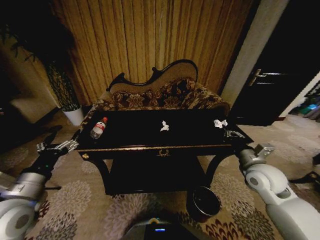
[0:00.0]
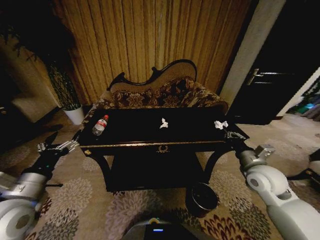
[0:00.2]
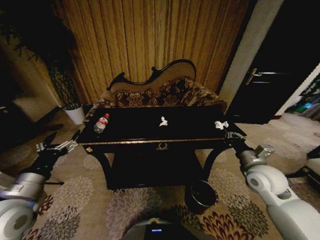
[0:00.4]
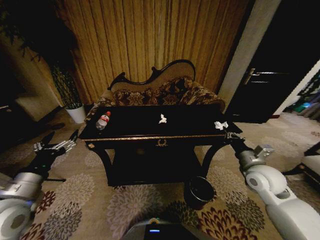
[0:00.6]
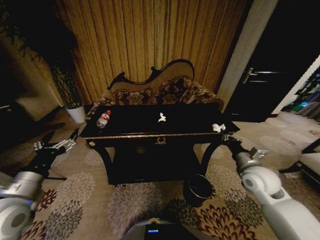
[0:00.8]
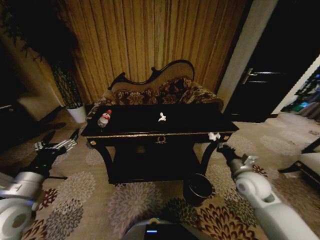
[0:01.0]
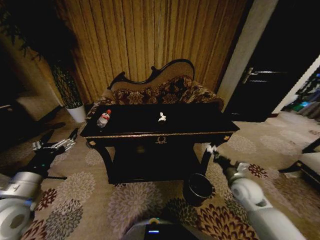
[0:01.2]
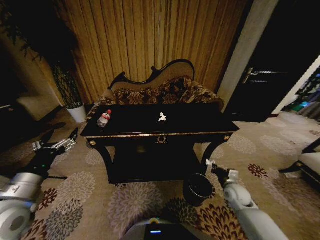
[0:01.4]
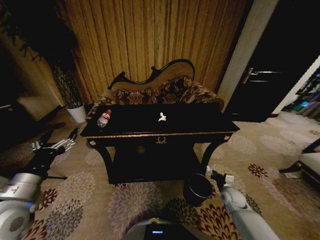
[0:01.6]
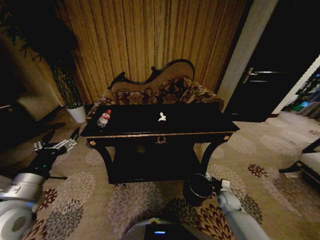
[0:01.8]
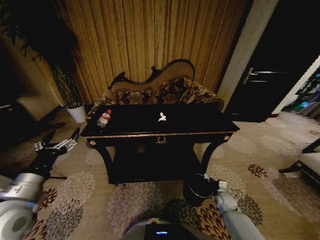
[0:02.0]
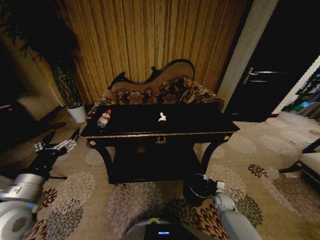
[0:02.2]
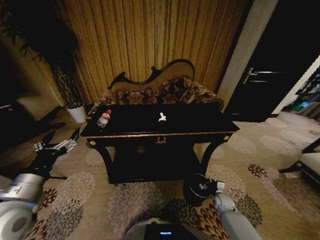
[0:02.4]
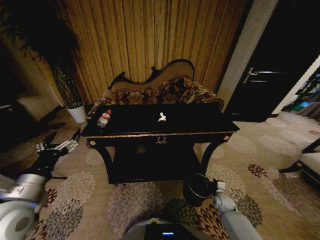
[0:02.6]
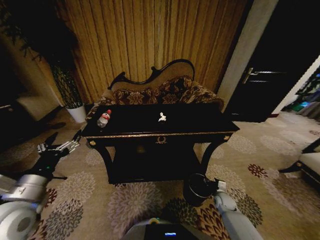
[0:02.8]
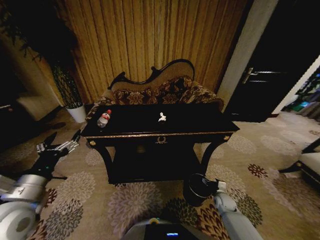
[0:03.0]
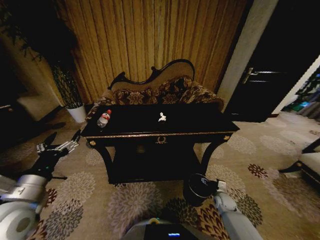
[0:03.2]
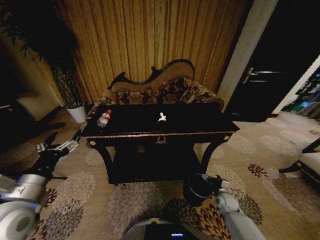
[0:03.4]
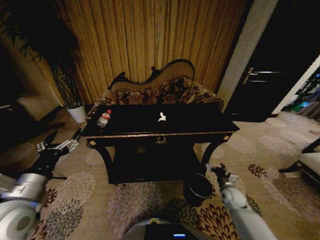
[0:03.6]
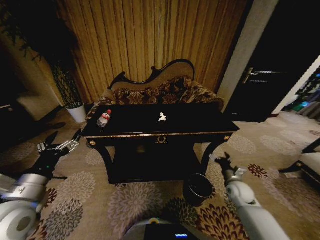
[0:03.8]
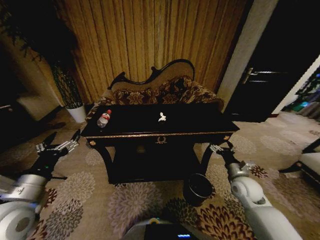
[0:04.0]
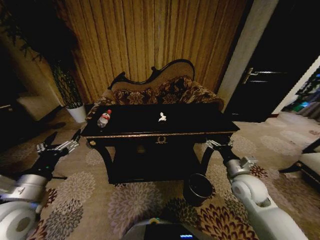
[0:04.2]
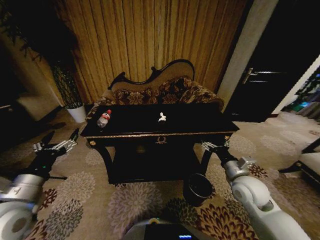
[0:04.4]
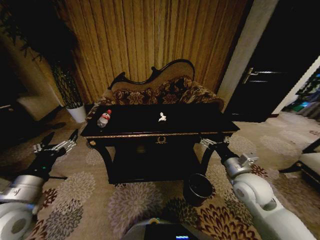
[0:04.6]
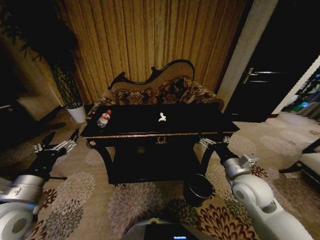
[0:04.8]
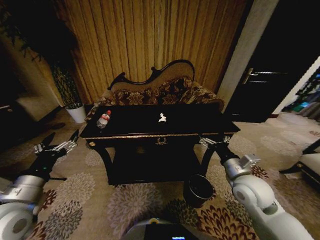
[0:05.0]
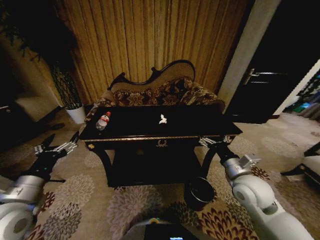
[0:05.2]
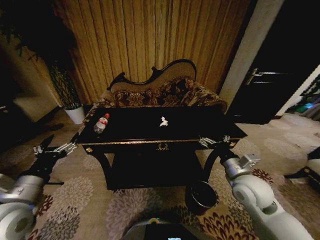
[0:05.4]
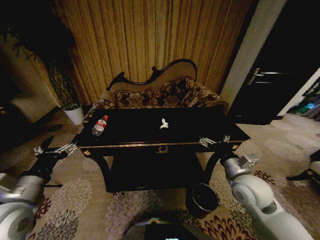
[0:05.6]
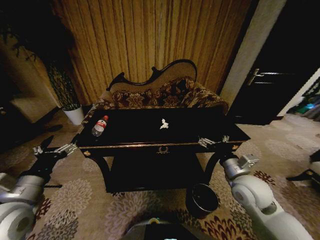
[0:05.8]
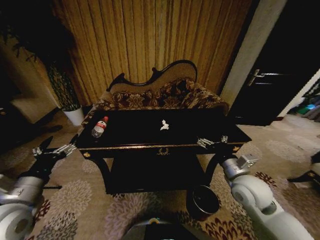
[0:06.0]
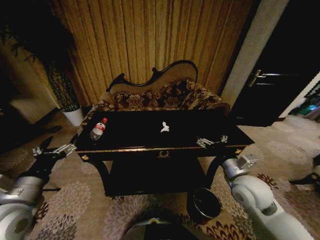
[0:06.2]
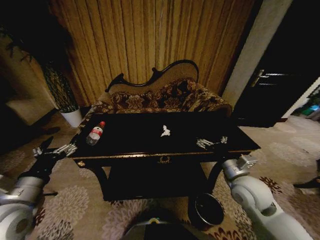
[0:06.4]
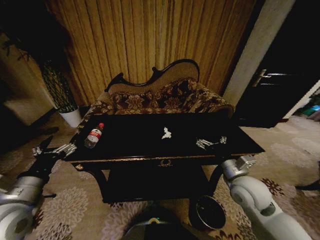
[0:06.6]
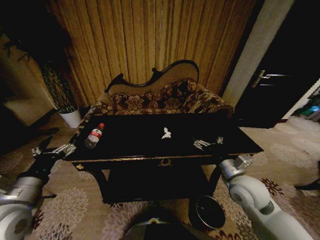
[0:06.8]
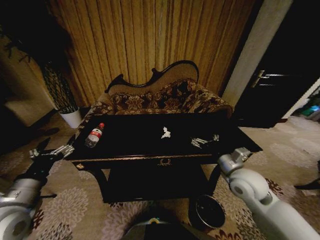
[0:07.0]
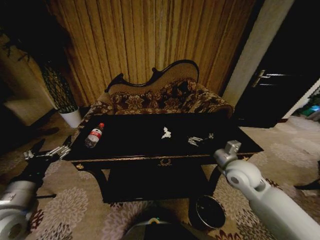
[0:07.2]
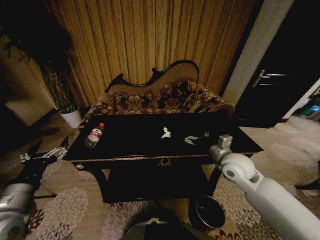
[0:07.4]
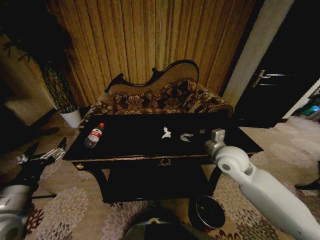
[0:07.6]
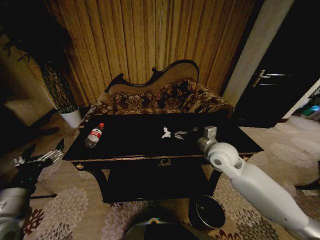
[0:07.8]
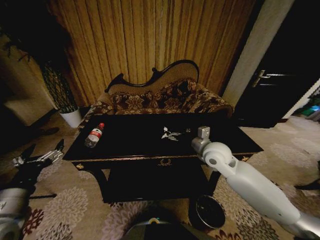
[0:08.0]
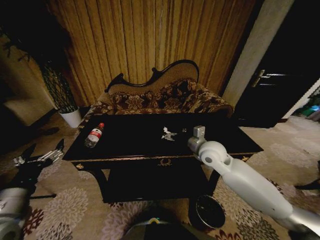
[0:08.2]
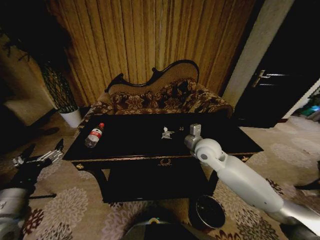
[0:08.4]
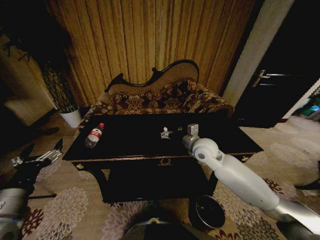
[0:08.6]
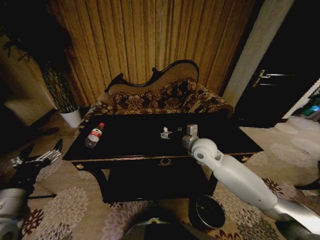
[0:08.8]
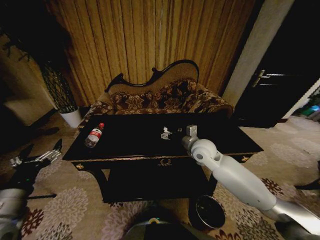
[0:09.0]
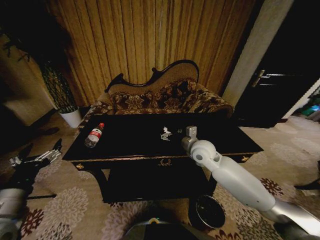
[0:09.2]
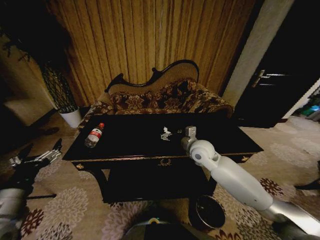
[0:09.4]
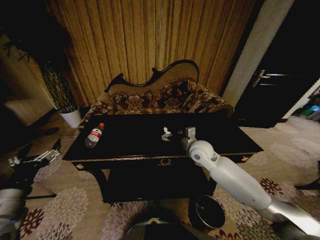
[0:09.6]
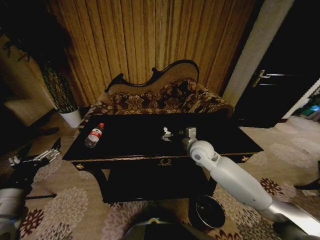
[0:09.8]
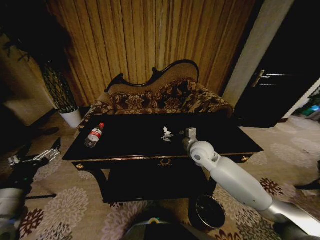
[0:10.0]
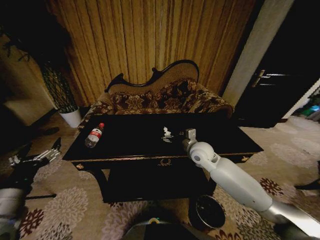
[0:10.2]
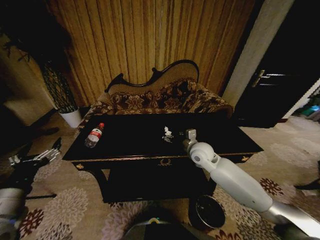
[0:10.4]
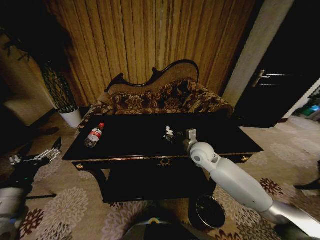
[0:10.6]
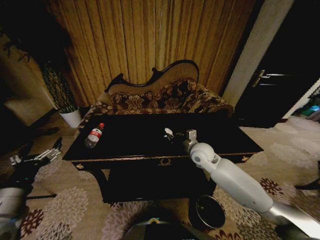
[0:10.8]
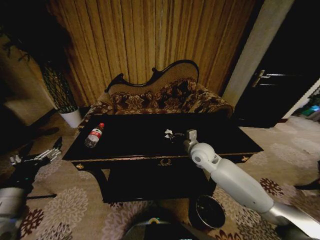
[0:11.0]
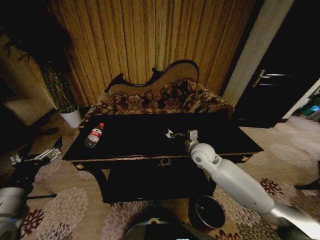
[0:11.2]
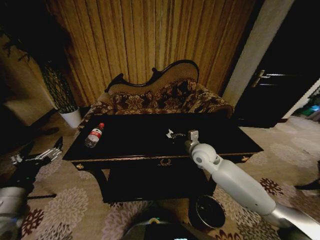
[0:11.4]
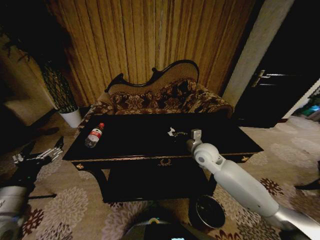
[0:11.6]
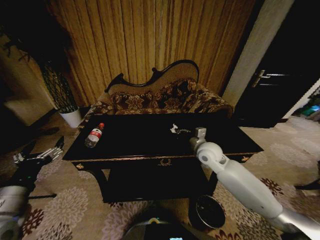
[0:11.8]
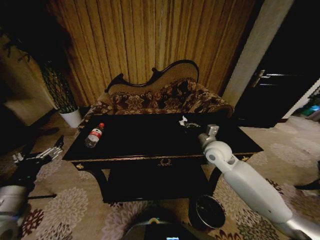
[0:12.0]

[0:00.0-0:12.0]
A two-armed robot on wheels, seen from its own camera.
Task of the whole recording: Move to the front of the table and place the trash on the table into the trash bin.
0:00.0 to 0:01.6: The right gripper travels downward by about 25 cm.
0:01.6 to 0:03.0: The right gripper goes approximately 5 cm downward, and opens up.
0:03.0 to 0:04.4: The right gripper travels upward by some 30 cm.
0:06.0 to 0:07.6: The right gripper is displaced forward by about 10 cm.
0:07.6 to 0:09.0: The right gripper goes some 10 cm to the left and forward.
0:09.0 to 0:10.4: The grippers move only a little.
0:10.4 to 0:12.0: The right gripper travels to the right by some 5 cm, and closes up.

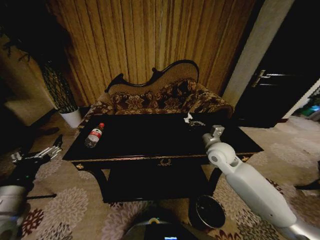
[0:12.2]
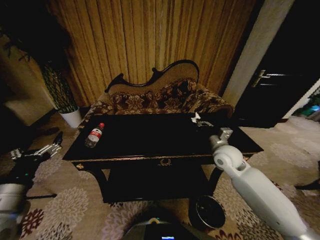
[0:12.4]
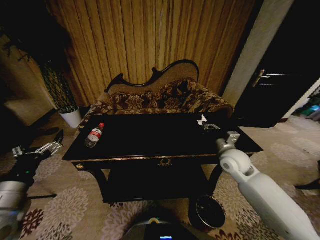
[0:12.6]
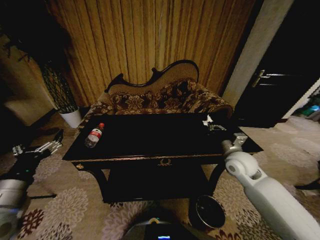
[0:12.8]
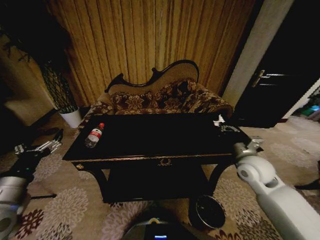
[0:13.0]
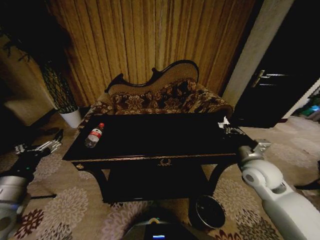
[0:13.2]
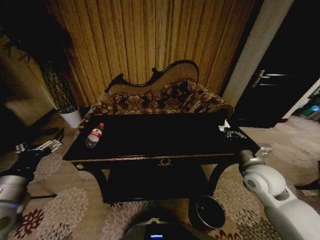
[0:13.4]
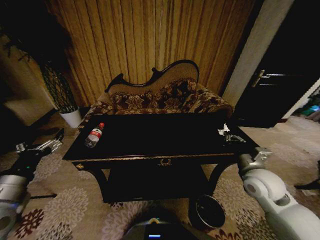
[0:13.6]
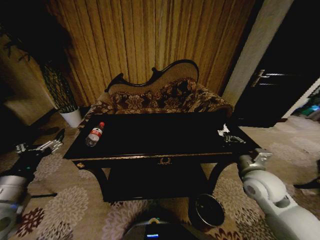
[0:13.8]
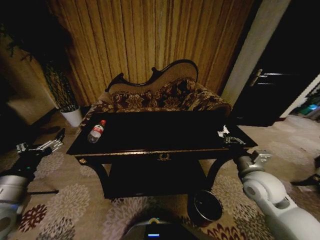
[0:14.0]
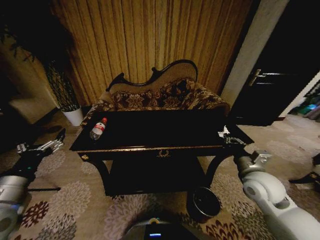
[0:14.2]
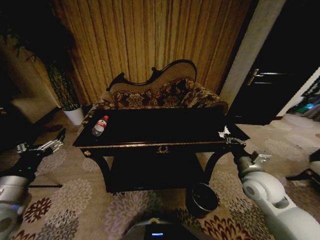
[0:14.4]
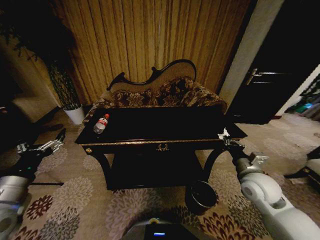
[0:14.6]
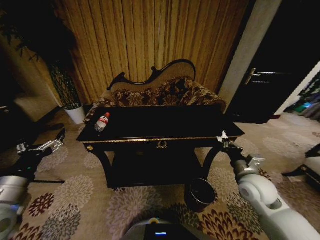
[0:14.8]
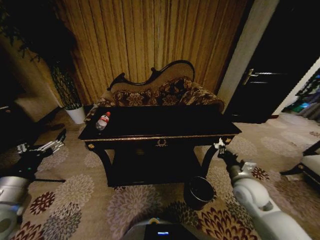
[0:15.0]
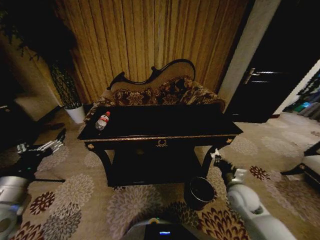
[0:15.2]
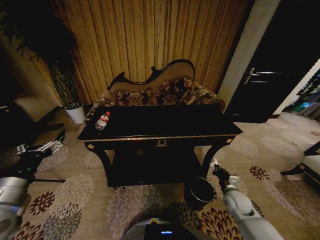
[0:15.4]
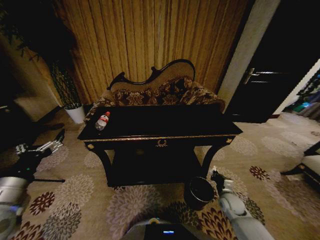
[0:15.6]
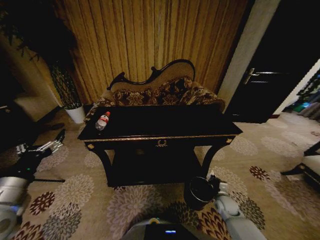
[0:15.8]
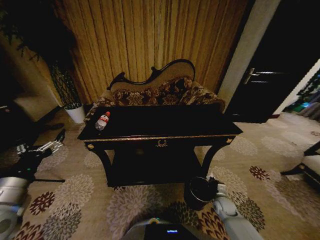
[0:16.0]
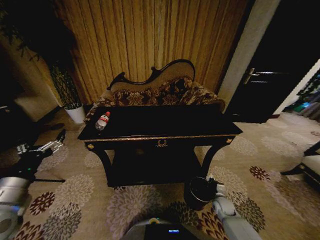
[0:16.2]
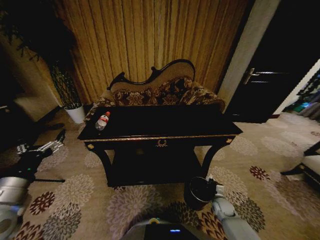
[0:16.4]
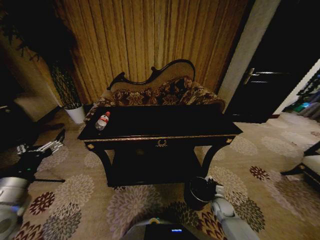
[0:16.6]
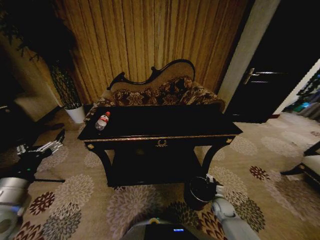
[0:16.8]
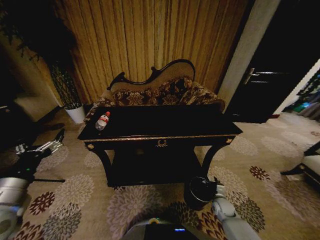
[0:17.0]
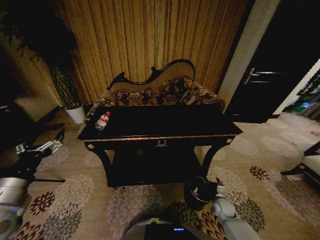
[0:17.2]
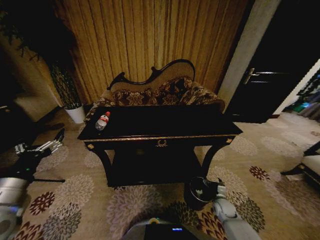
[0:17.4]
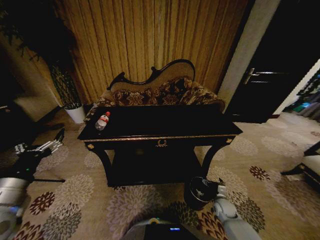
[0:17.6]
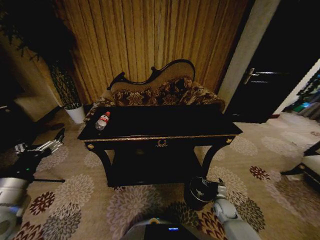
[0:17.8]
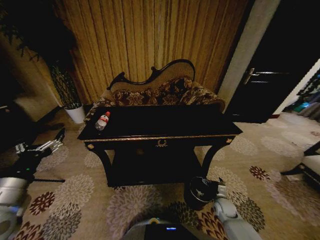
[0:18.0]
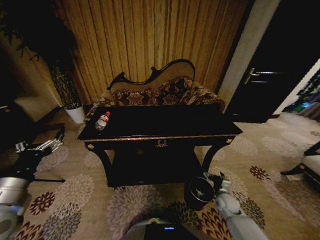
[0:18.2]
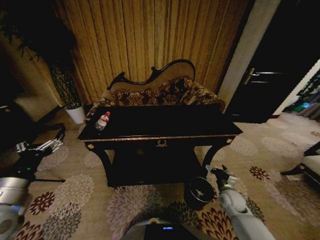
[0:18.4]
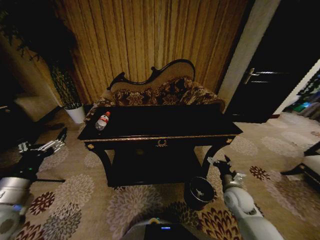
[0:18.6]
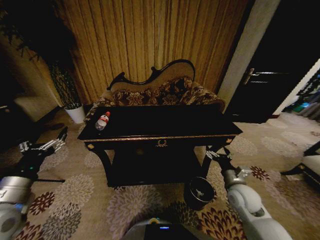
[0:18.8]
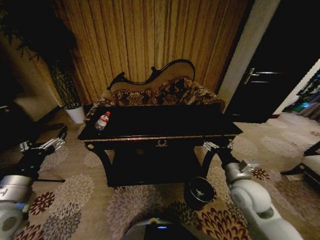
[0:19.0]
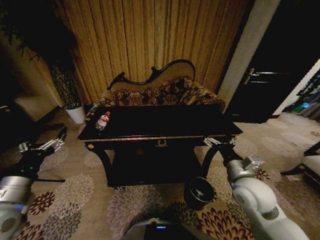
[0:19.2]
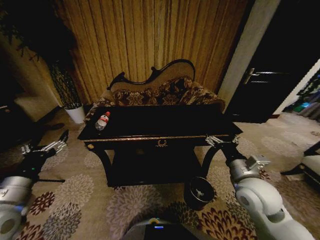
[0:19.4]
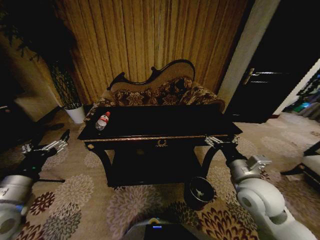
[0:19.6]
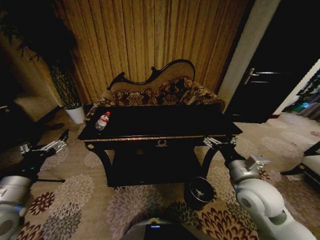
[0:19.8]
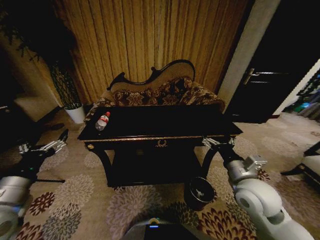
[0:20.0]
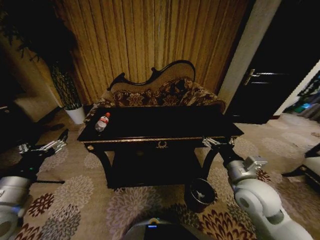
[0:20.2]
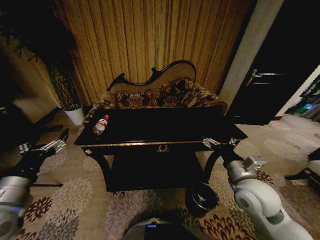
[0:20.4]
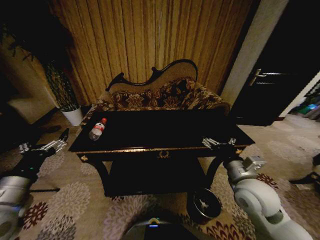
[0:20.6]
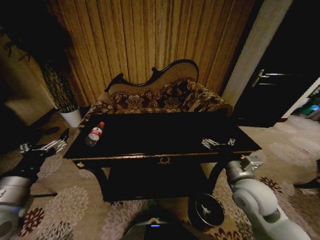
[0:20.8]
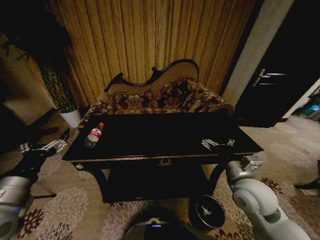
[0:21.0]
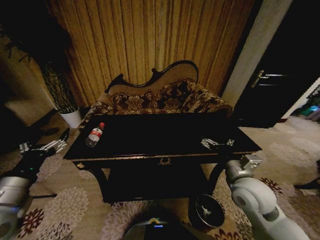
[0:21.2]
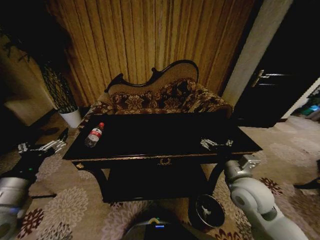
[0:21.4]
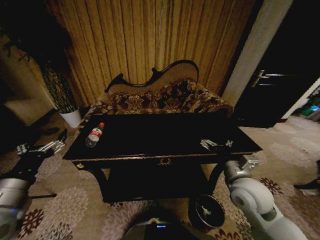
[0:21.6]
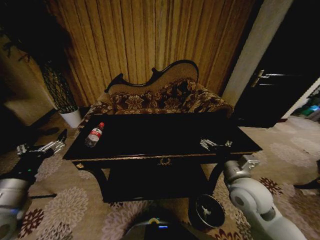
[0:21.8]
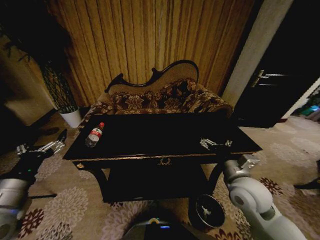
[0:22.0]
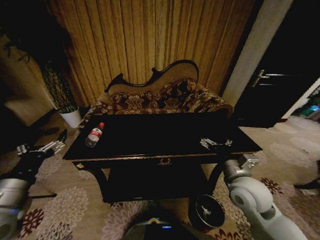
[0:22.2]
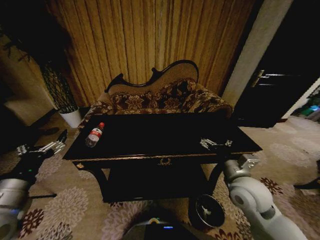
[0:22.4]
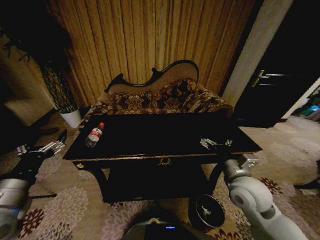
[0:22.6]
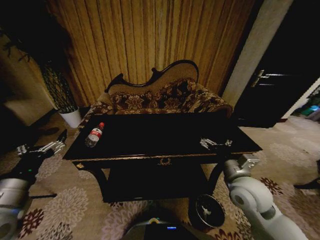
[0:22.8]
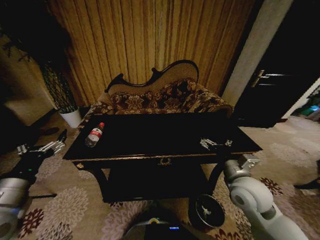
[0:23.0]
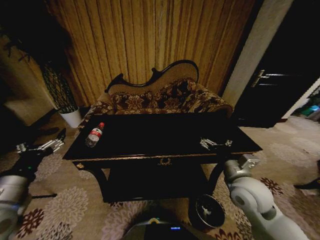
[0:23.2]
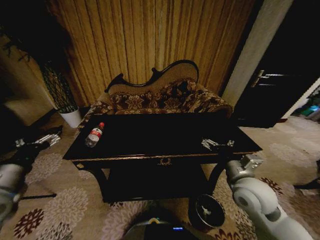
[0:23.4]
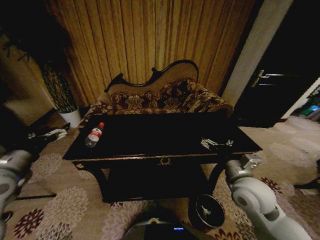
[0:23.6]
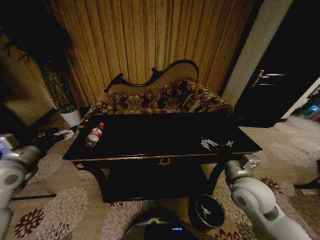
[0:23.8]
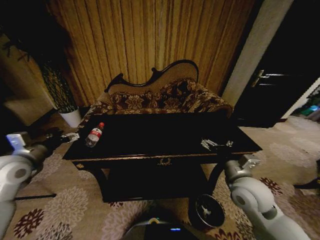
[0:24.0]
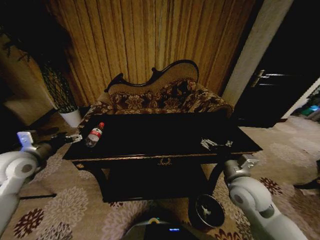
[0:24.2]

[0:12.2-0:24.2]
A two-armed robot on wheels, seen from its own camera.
Task of the whole recording: Move to the front of the table and place the trash on the table into the trash bin.
0:12.2 to 0:13.8: The right gripper shifts roughly 15 cm backward and to the right.
0:13.8 to 0:15.2: The right gripper is displaced downward by some 10 cm.
0:15.2 to 0:16.6: The right gripper heads downward, covering some 20 cm.
0:16.6 to 0:18.2: The right gripper opens.
0:18.2 to 0:19.8: The right gripper travels upward by approximately 30 cm.
0:21.2 to 0:22.6: Neither gripper changes place.
0:22.6 to 0:24.2: The left gripper travels forward by roughly 15 cm.
